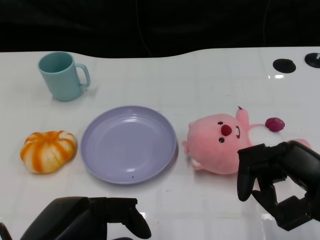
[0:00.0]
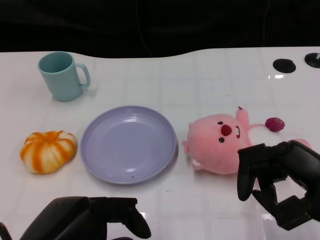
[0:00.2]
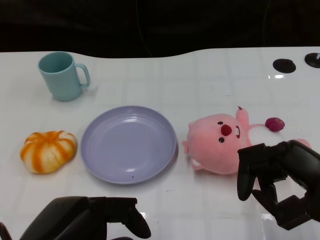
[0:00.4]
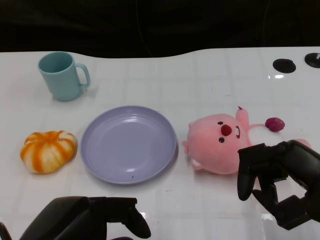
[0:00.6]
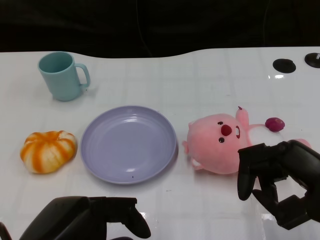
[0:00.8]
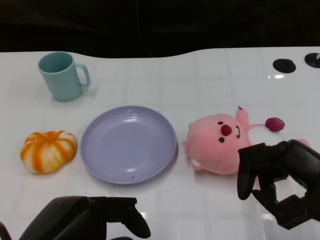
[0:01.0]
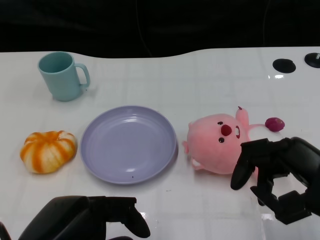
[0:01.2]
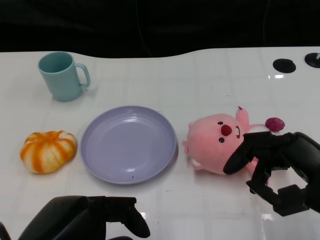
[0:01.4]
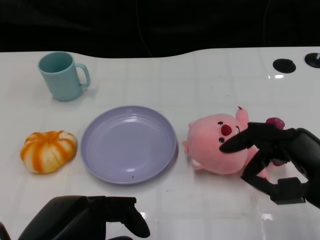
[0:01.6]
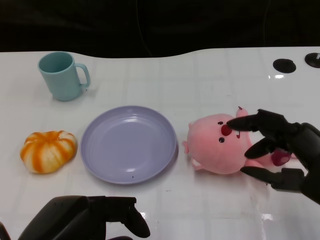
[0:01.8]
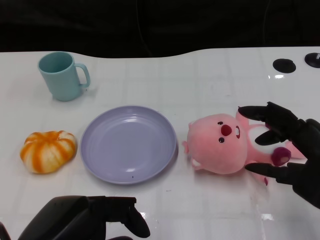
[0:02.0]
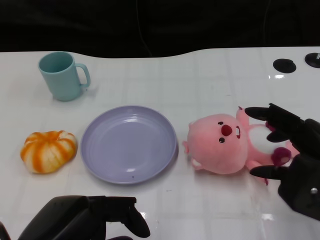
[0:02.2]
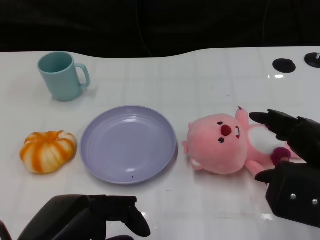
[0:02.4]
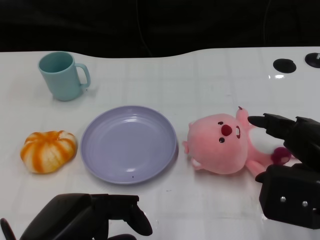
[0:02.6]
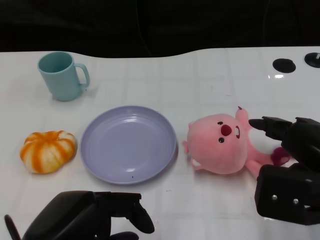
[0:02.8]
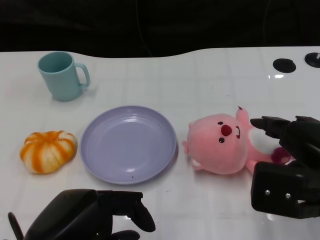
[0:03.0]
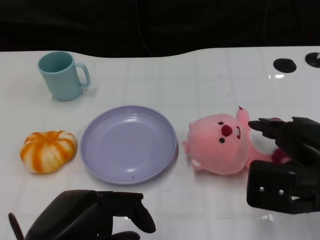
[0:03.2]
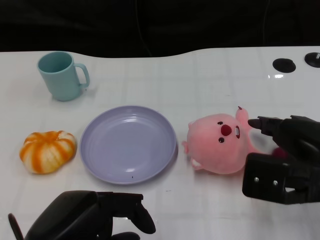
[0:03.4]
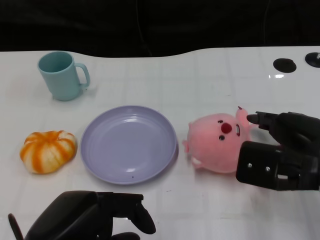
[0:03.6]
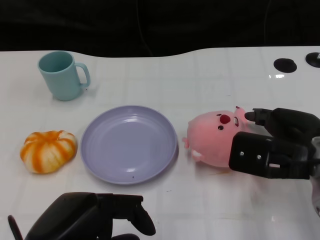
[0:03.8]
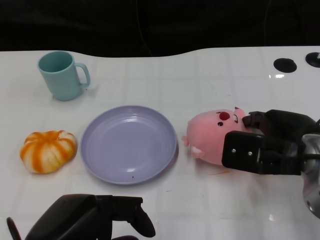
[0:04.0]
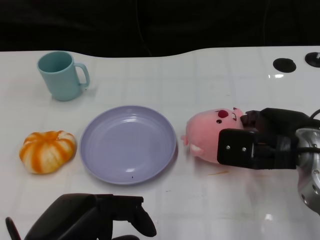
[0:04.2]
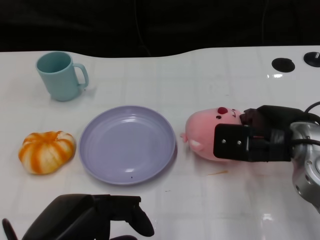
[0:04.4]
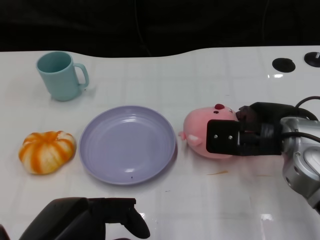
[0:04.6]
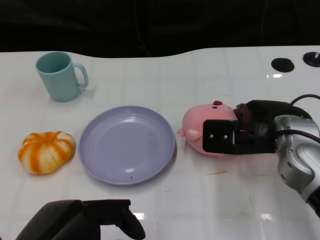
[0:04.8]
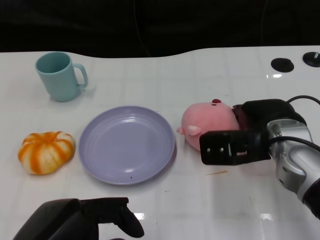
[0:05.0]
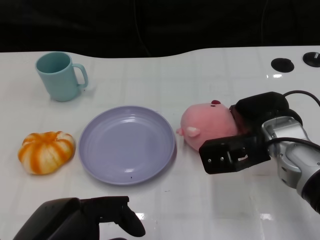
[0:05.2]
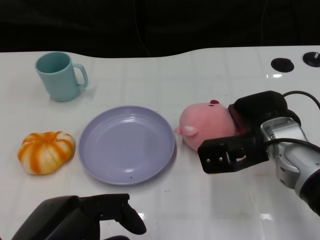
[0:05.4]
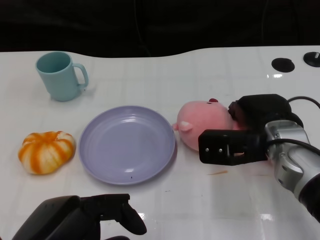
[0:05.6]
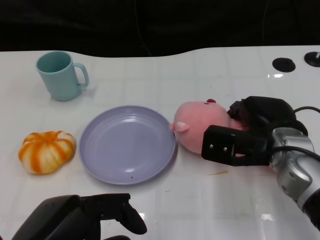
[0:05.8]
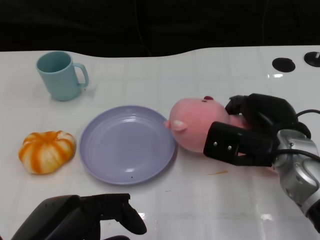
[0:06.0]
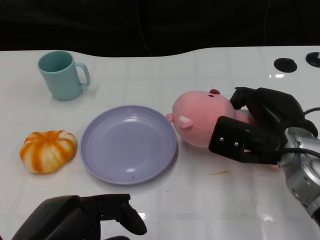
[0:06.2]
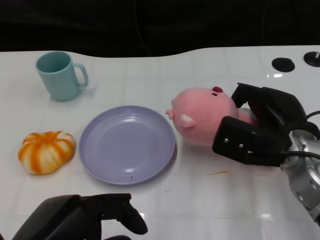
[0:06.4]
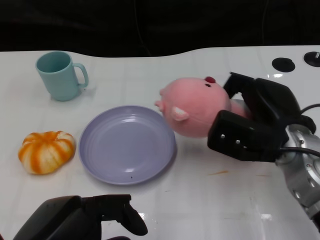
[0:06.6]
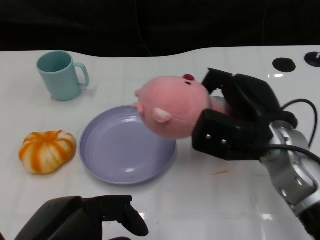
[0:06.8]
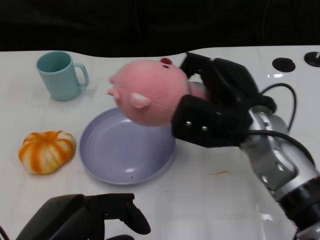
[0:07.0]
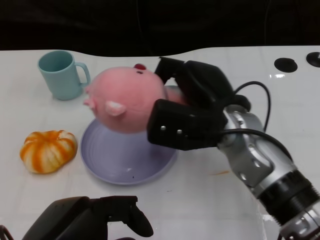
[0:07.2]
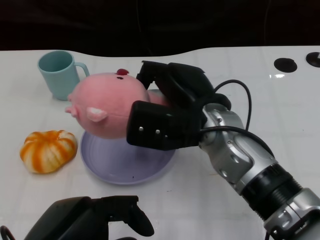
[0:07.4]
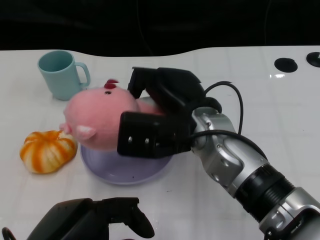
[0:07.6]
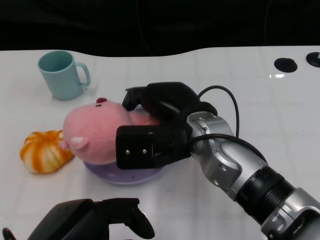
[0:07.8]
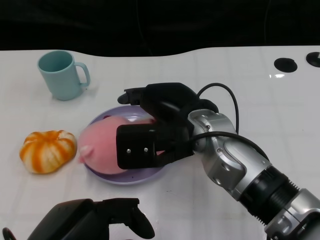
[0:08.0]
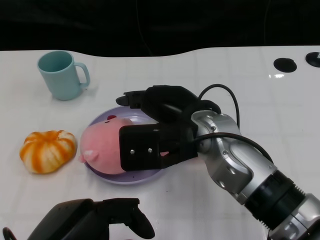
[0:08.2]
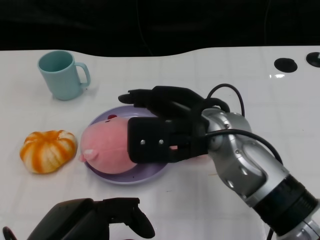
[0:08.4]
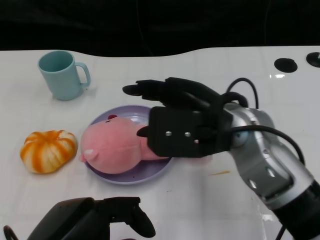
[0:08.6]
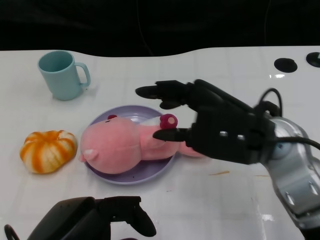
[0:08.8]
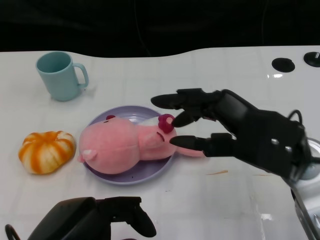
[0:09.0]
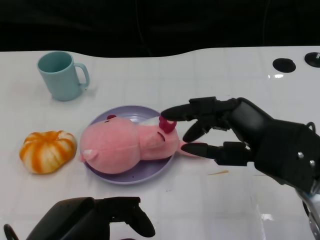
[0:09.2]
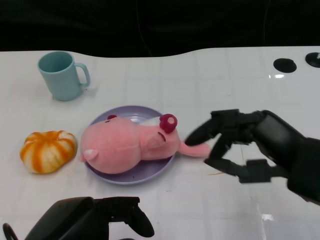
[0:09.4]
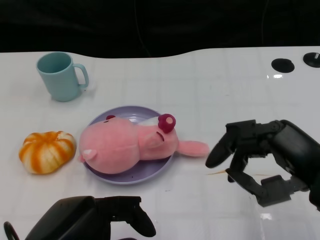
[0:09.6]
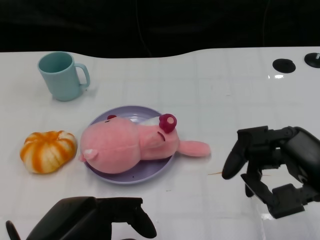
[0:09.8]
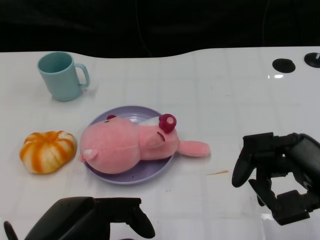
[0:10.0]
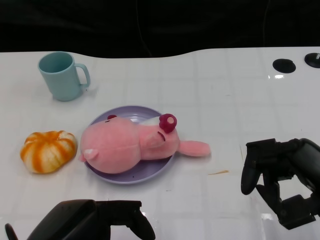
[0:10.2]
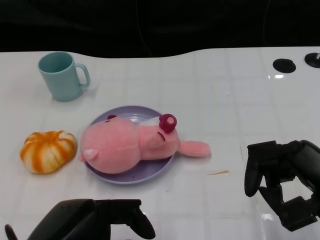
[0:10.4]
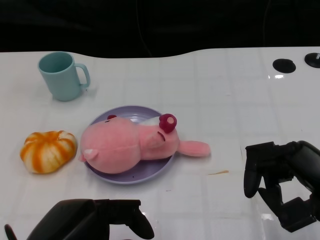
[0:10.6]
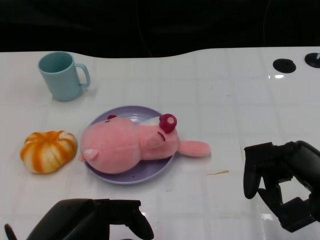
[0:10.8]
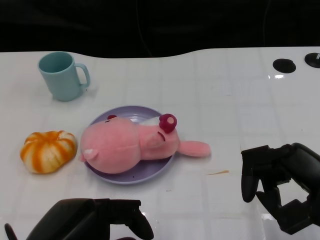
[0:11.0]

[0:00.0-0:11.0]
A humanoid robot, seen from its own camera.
Task of the whole recording: Pick up the doll on the other side of the plate and place it into the plate.
Step, 0:01.0 to 0:06.8: Grasp the pink doll with the right gripper.
Step, 0:07.0 to 0:08.8: Place the pink doll into the plate with the right gripper.
0:03.2 to 0:04.8: The right hand goes some 10 cm forward and to the left.
0:06.2 to 0:07.8: The right hand goes roughly 15 cm to the left.
0:07.8 to 0:09.4: The right hand is displaced to the right and backward by roughly 15 cm.
0:09.4 to 0:11.0: The right hand ends up about 5 cm from where it was.

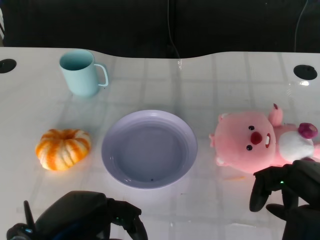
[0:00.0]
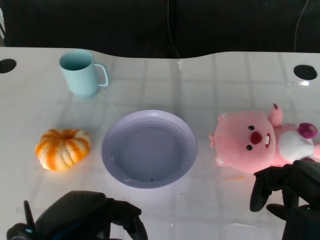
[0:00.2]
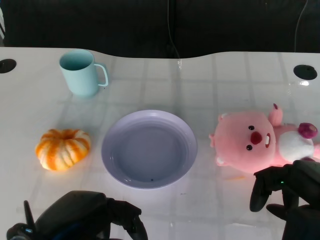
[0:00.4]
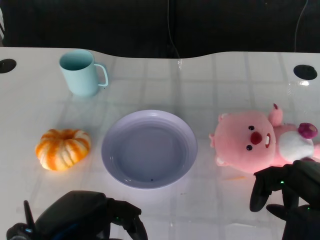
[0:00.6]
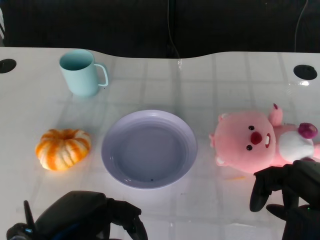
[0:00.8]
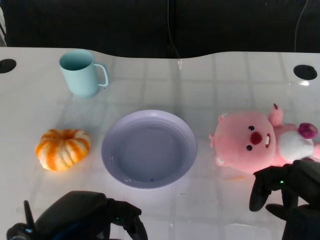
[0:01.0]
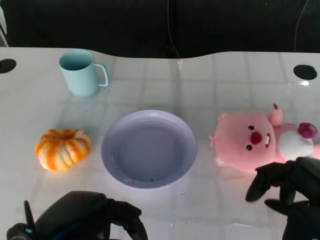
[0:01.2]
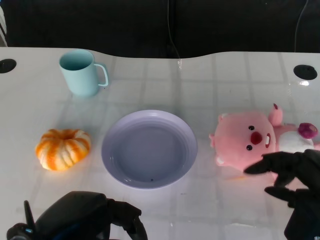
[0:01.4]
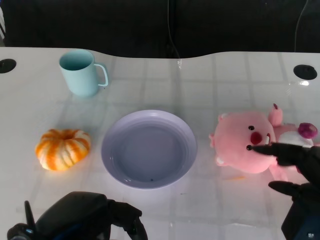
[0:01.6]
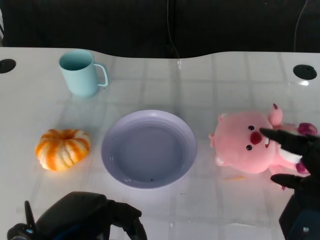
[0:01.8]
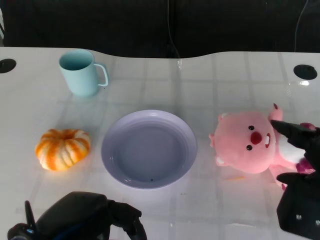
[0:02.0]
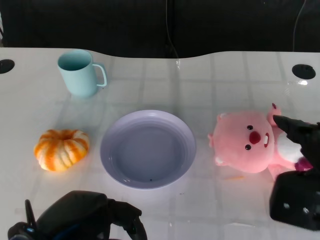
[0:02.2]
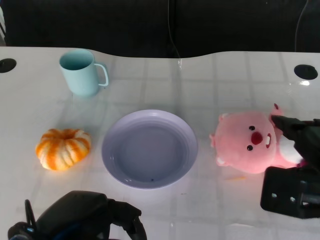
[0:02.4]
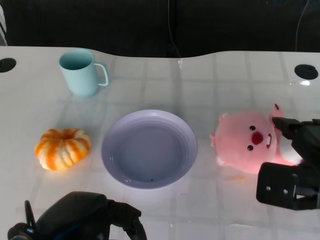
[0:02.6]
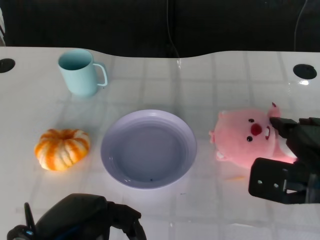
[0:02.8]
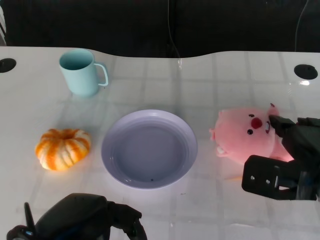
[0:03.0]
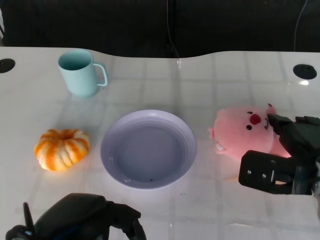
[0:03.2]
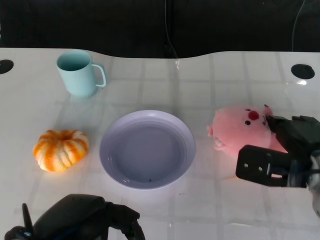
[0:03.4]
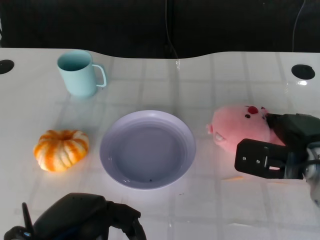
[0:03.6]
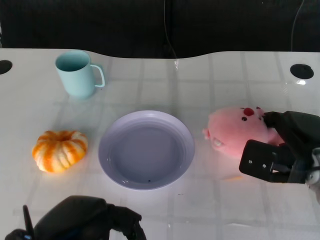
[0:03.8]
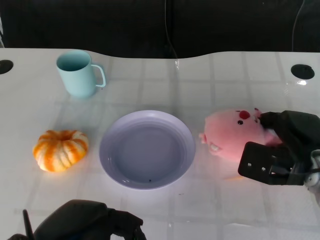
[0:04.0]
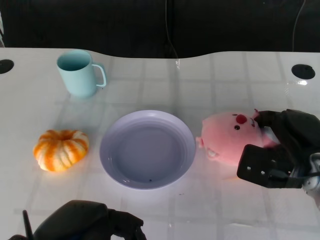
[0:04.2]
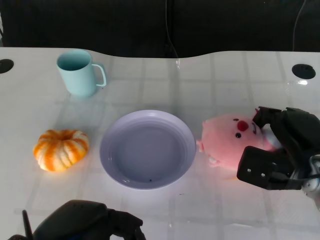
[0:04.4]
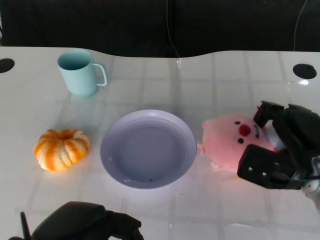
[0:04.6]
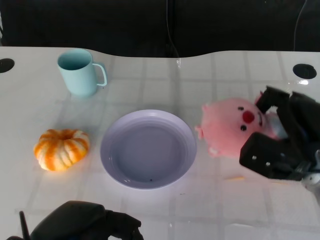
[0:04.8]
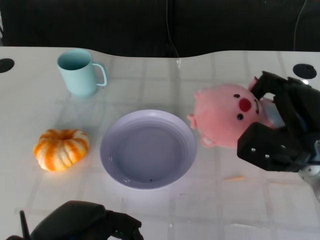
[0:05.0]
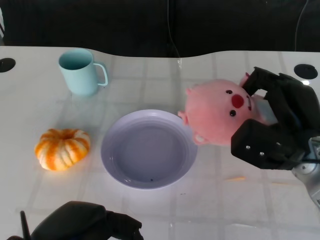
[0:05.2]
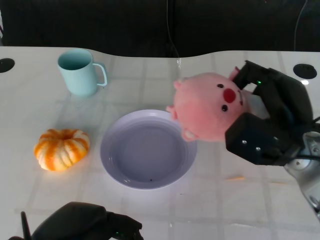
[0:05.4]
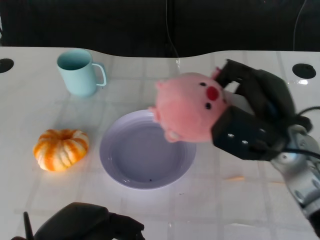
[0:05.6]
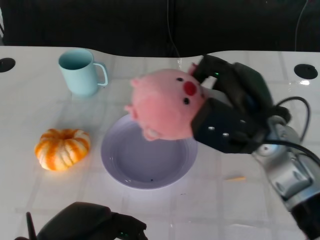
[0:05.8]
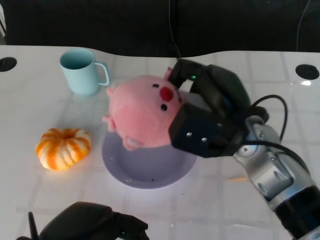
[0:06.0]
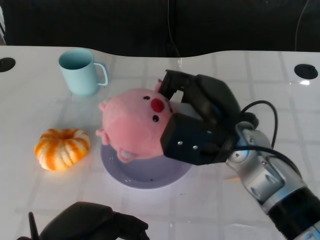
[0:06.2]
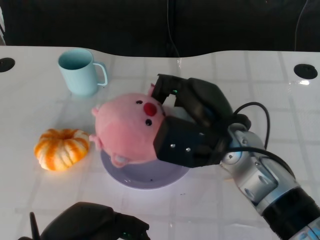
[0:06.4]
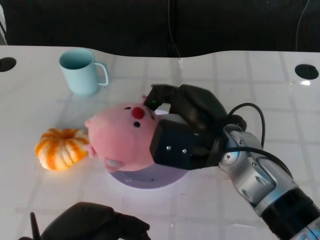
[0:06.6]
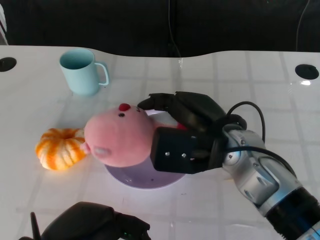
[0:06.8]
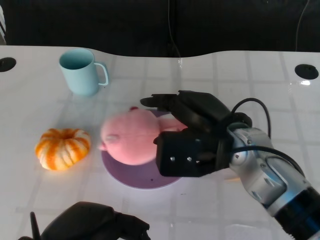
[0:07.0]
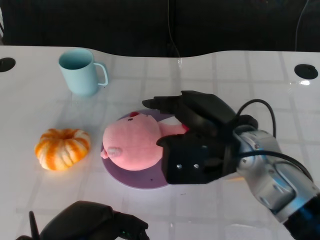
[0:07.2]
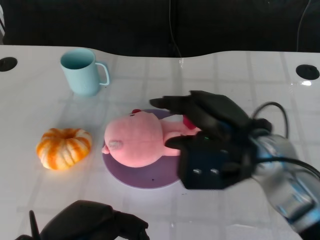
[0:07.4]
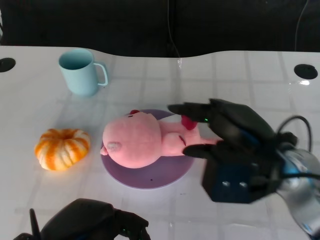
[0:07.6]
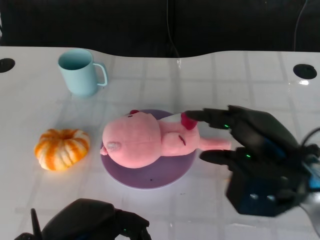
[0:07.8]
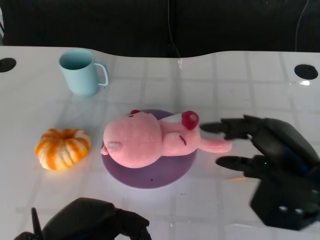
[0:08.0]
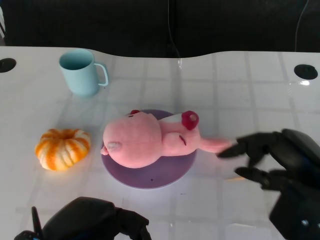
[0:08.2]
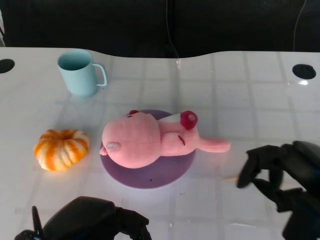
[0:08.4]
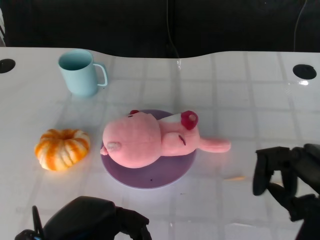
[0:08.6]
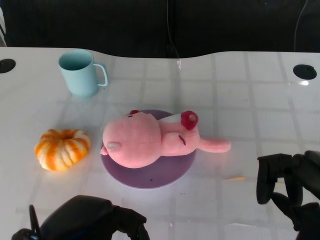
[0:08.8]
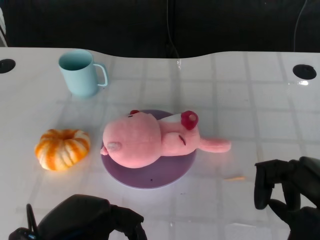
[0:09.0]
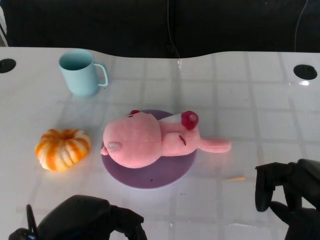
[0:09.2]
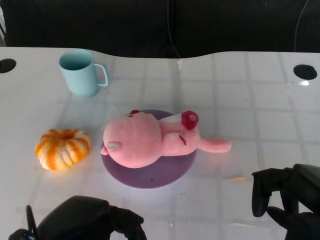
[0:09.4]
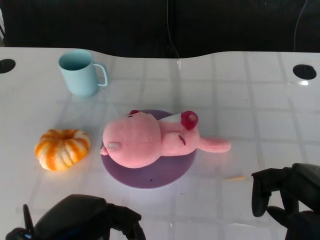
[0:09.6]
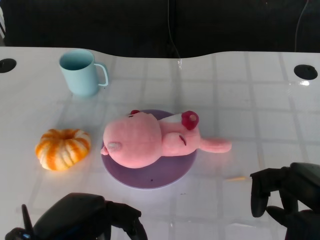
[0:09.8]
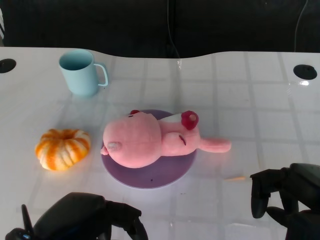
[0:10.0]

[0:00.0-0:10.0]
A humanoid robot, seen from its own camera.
Task of the whole recording: Pick up the doll on the other side of the plate and place it into the plate.
Step, 0:01.2 to 0:05.2: Grasp the pink doll with the right gripper.
Step, 0:05.4 to 0:07.6: Place the pink doll into the plate with the right gripper.
0:01.4 to 0:02.8: The right hand moves forward, some 5 cm.
0:02.8 to 0:04.2: The right hand shifts by about 5 cm.
0:04.2 to 0:05.8: The right hand moves upward and to the left, some 10 cm.
0:07.2 to 0:08.6: The right hand is displaced to the right and backward by approximately 20 cm.
0:08.6 to 0:10.0: The hands stay close to where they were, moving slightly.

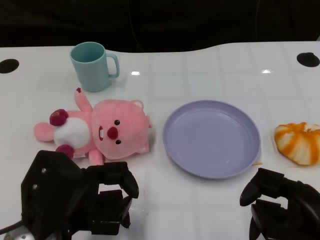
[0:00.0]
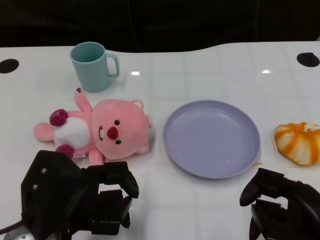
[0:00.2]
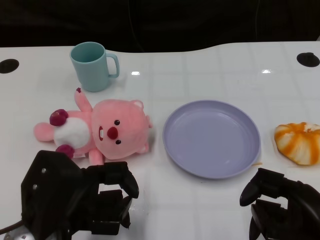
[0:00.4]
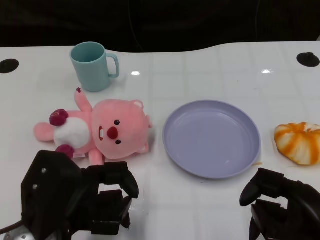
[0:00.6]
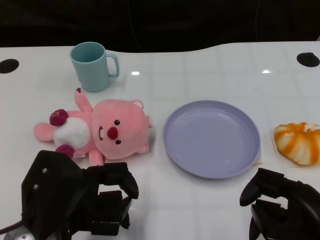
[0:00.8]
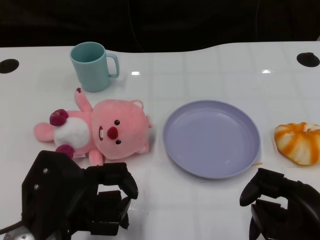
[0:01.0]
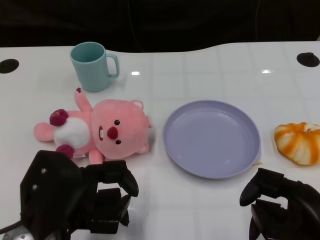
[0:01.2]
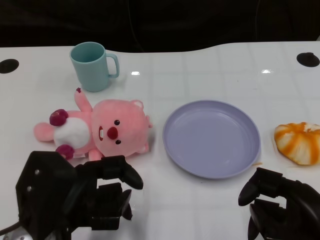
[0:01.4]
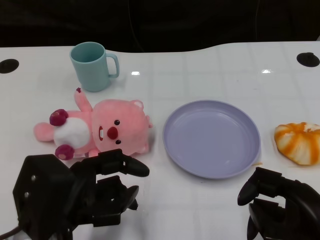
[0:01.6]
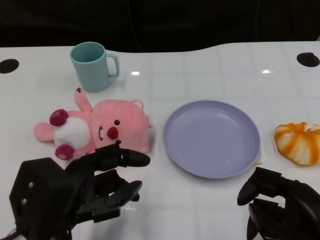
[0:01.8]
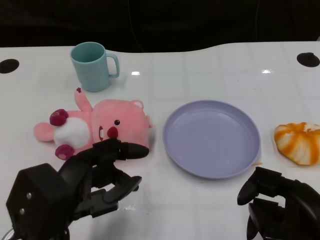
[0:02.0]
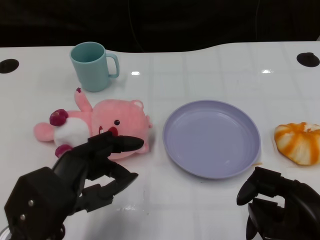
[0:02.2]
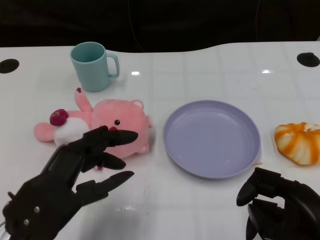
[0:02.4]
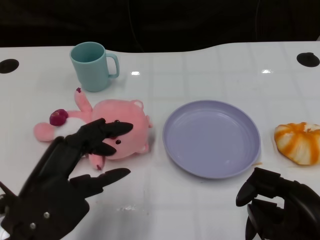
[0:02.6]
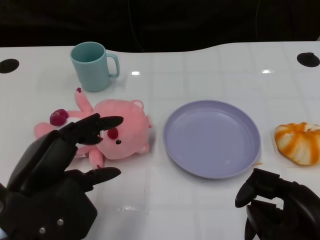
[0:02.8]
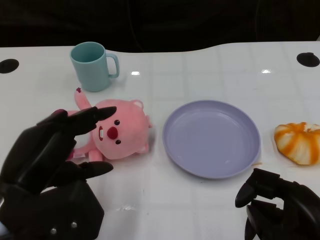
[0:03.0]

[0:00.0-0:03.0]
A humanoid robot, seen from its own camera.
Task of the whole recording: Pick up the doll on one side of the plate and place it into the plate.
0:01.6 to 0:03.0: The left hand is displaced upward by some 5 cm.
